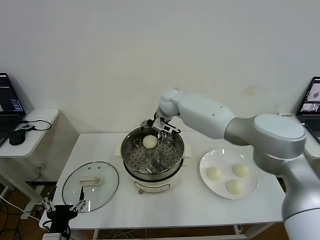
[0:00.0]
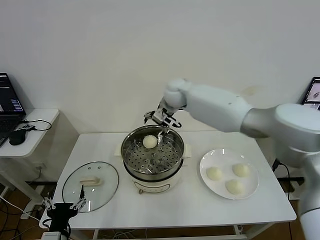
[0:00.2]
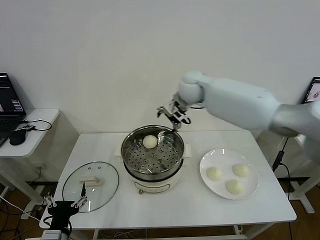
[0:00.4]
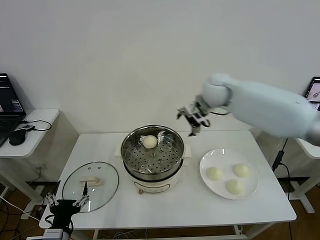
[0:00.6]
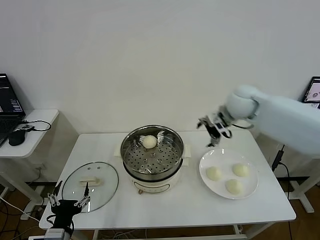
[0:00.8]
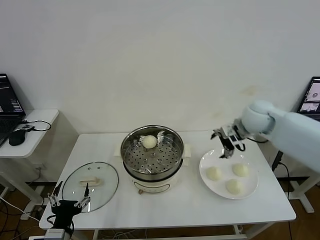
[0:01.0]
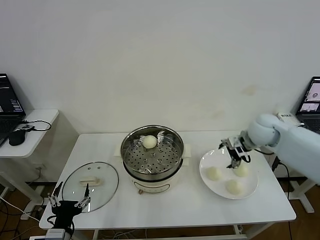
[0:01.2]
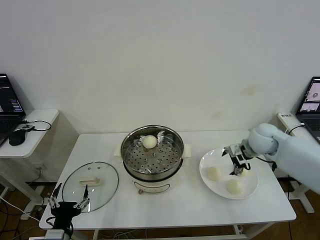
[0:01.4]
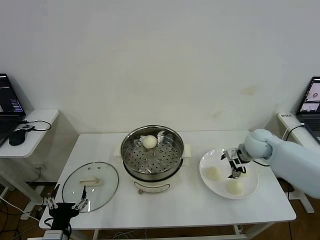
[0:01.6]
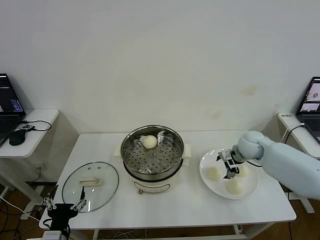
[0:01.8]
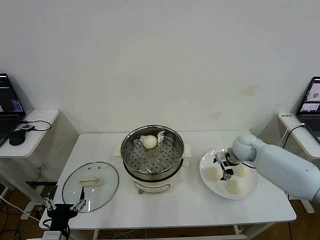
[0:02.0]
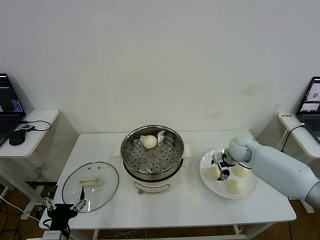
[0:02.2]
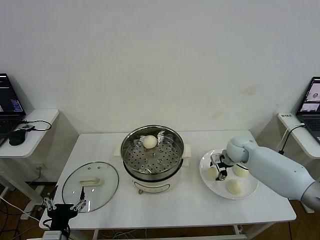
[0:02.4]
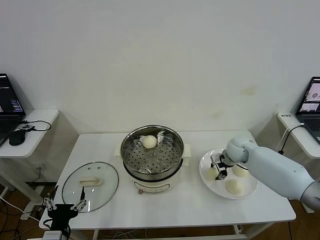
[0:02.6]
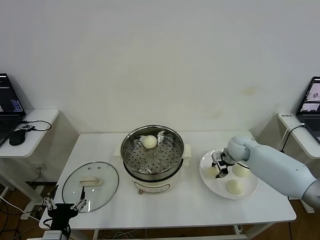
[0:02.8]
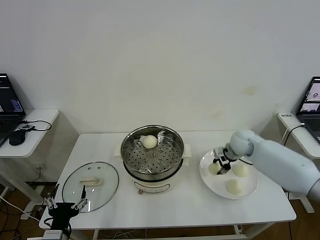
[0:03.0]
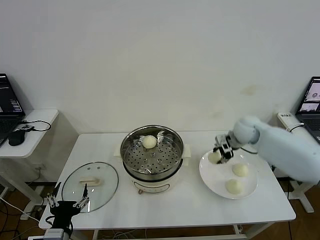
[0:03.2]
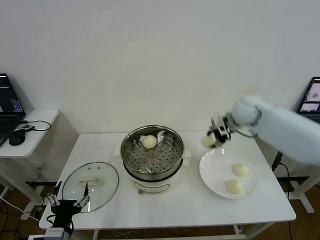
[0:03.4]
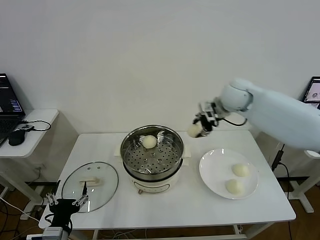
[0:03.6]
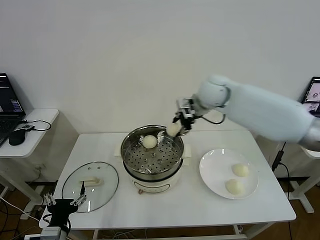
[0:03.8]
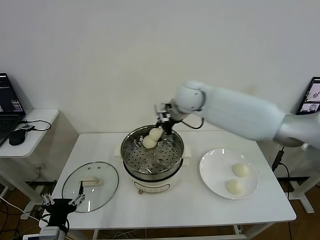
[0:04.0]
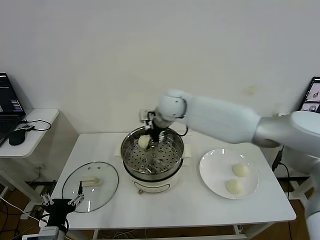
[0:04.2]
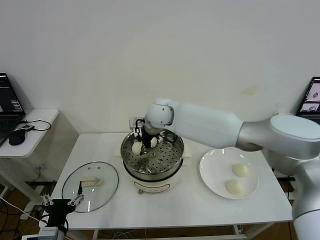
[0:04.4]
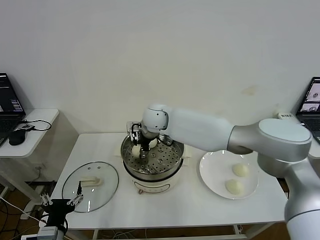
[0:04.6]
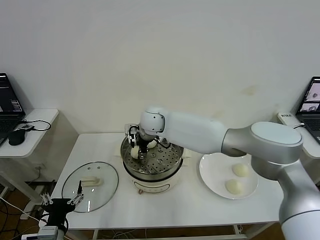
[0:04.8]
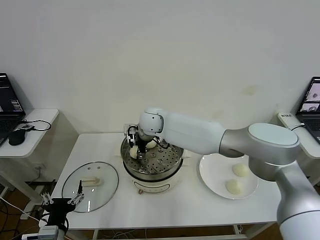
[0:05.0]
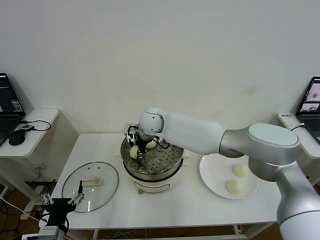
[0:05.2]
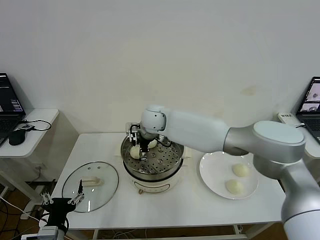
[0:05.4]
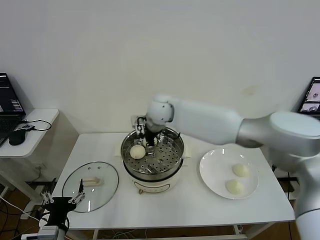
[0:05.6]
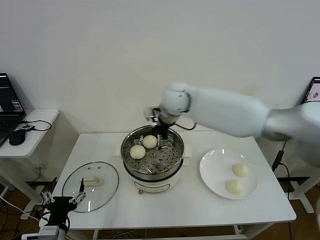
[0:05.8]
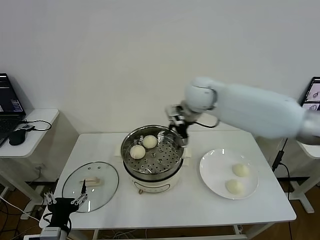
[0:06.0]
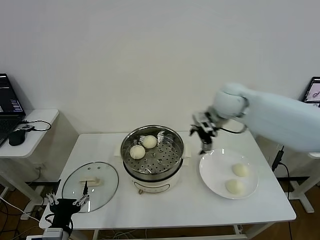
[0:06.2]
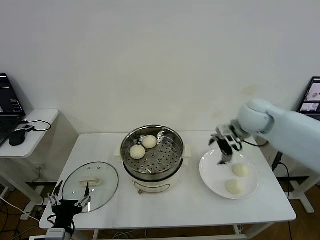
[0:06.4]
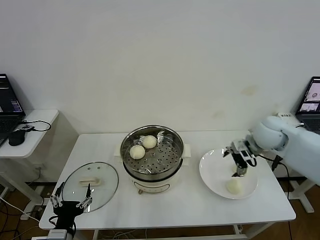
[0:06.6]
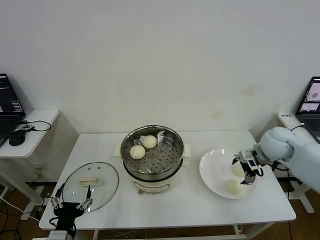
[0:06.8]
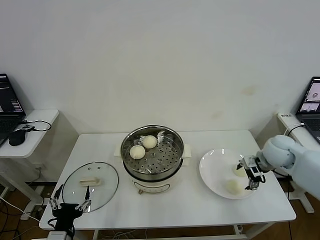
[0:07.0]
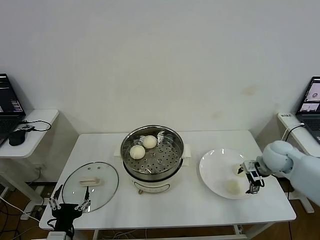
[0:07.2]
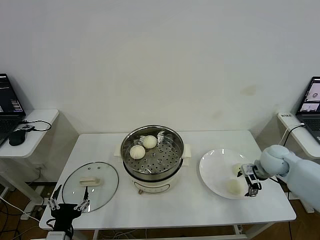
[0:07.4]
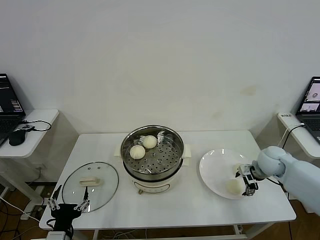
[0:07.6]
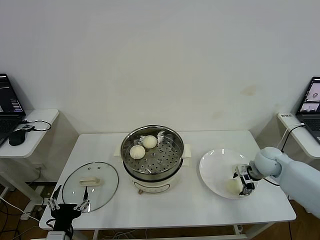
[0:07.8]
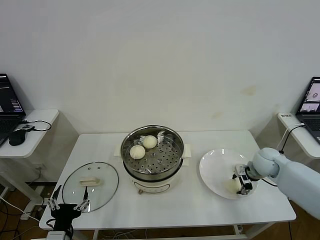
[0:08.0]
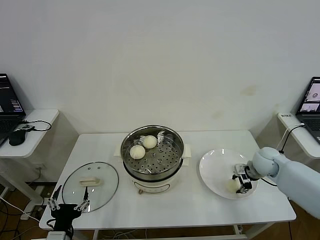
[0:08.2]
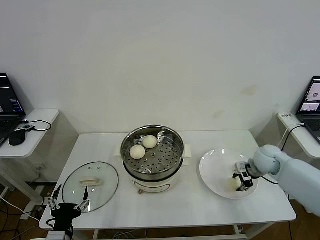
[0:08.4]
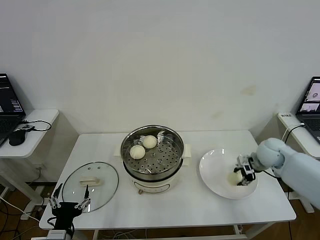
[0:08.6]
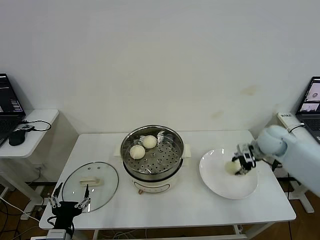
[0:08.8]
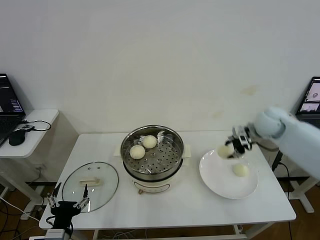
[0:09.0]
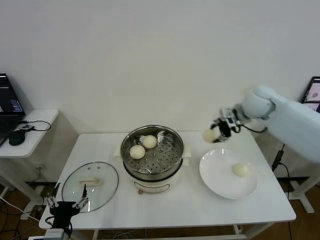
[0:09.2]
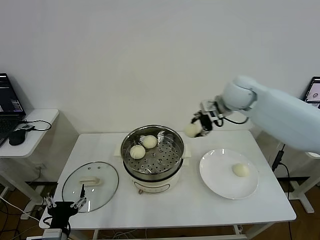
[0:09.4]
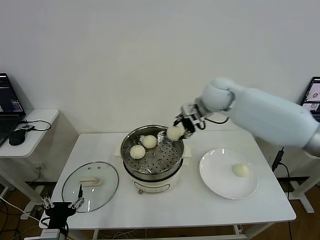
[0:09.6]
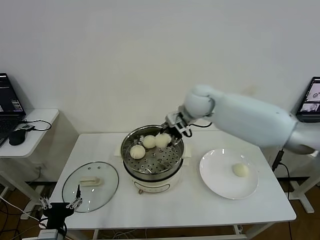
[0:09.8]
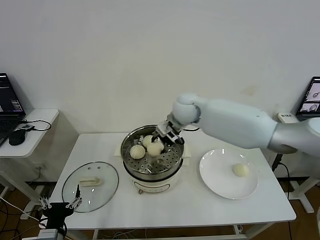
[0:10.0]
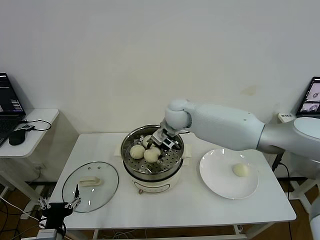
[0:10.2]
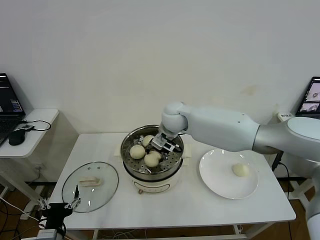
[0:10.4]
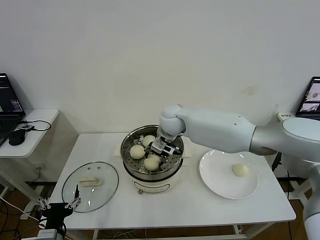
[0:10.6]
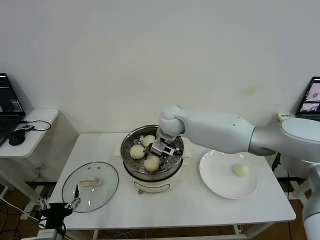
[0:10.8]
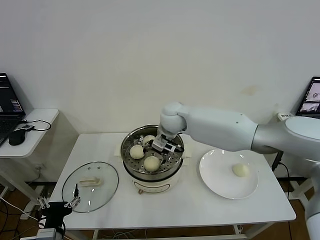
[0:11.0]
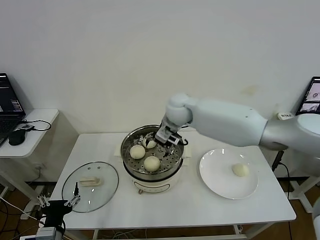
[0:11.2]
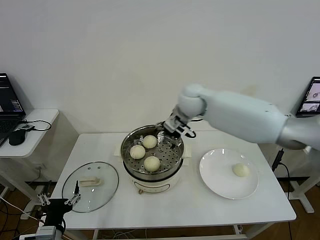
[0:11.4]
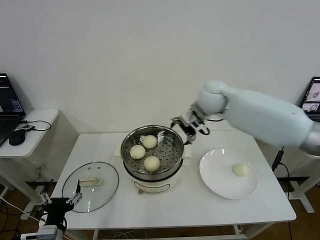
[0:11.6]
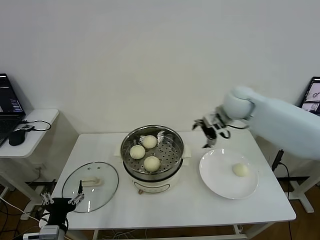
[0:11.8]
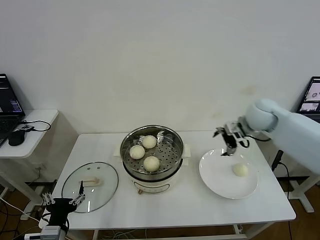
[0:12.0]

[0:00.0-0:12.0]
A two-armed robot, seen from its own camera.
Step, 0:00.0 to 0:02.6: Grasp the baozi in the plate with right gripper.
Step, 0:02.8 to 0:05.4: Place the baozi on the steamer with right gripper.
Step, 0:05.6 to 0:08.2: Grasp the baozi in the plate with right gripper.
Step, 0:08.4 to 0:10.8: Place the baozi on the steamer with right gripper.
0:00.0 to 0:01.6: The right gripper shifts some 35 cm to the right, downward and backward.
0:01.6 to 0:03.0: The right gripper closes its fingers.
0:03.0 to 0:04.4: The right gripper moves to the left, some 30 cm.
0:04.4 to 0:06.0: The right gripper is displaced to the right and upward by roughly 20 cm, and opens its fingers.
0:06.0 to 0:07.6: The right gripper moves to the right and downward, roughly 30 cm.
0:07.6 to 0:09.0: The right gripper is displaced upward and forward by roughly 15 cm, and closes.
0:09.0 to 0:10.4: The right gripper shifts some 30 cm to the left.
0:10.4 to 0:12.0: The right gripper travels to the right by some 30 cm, and opens.

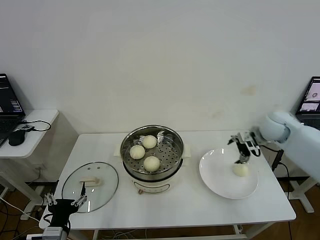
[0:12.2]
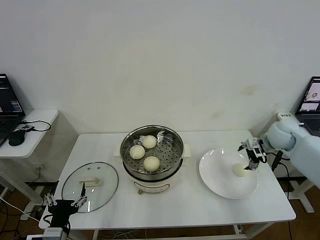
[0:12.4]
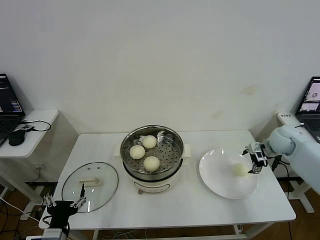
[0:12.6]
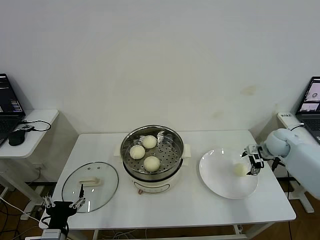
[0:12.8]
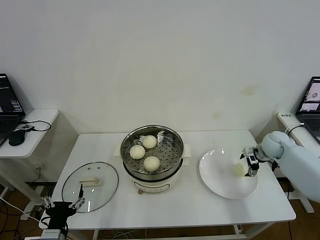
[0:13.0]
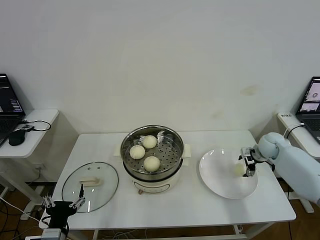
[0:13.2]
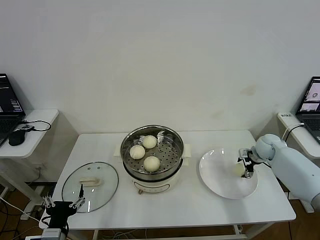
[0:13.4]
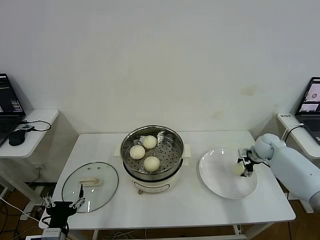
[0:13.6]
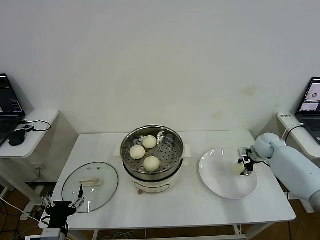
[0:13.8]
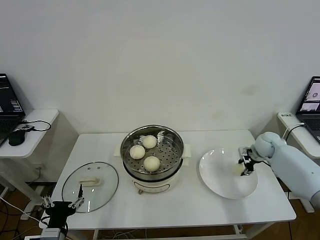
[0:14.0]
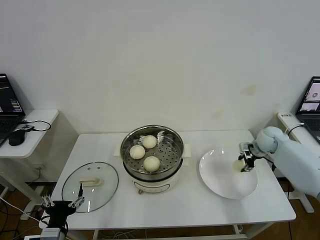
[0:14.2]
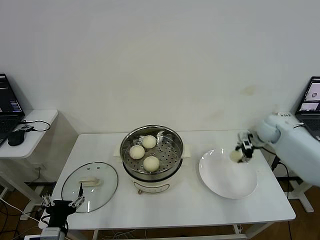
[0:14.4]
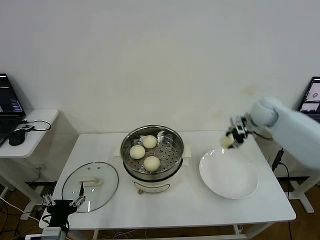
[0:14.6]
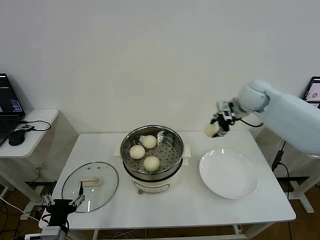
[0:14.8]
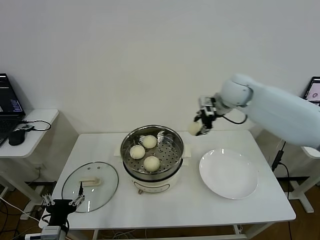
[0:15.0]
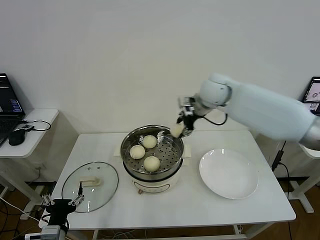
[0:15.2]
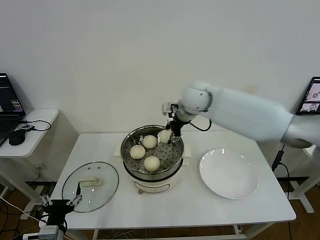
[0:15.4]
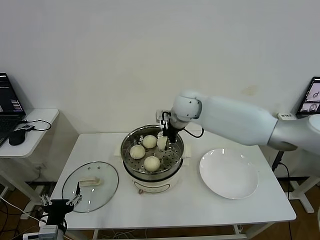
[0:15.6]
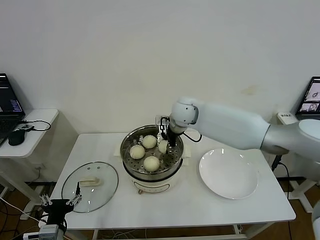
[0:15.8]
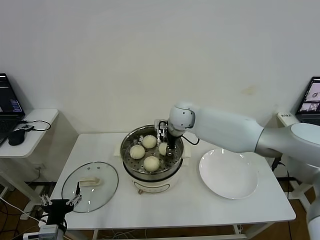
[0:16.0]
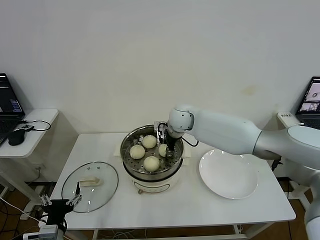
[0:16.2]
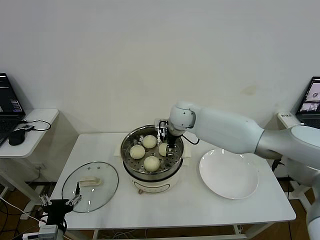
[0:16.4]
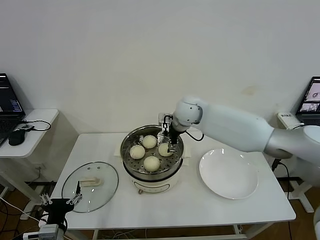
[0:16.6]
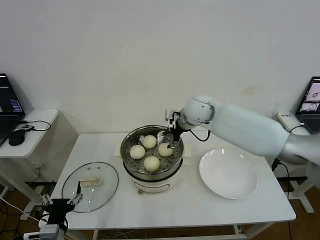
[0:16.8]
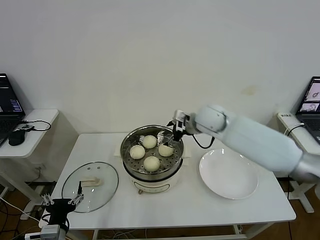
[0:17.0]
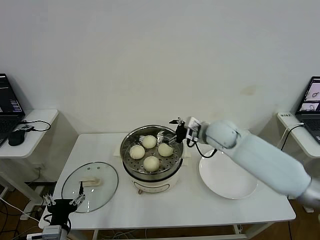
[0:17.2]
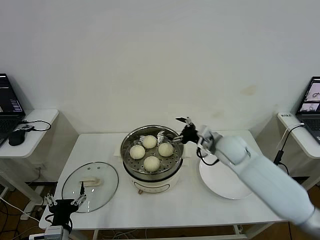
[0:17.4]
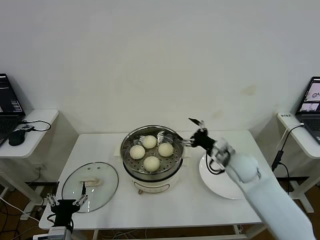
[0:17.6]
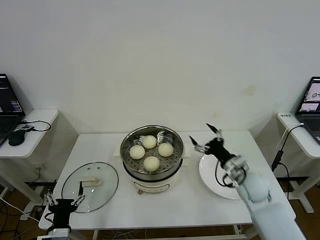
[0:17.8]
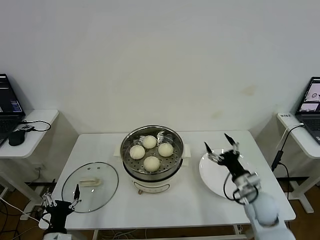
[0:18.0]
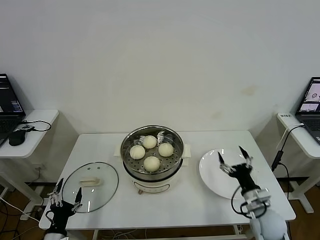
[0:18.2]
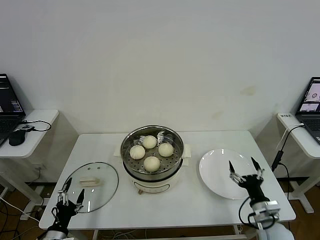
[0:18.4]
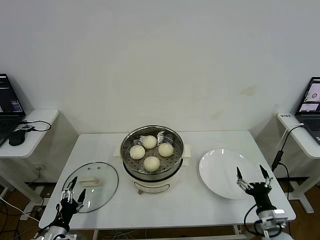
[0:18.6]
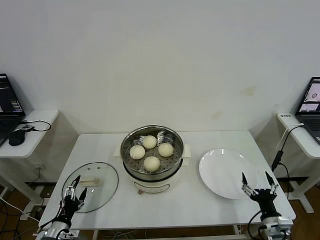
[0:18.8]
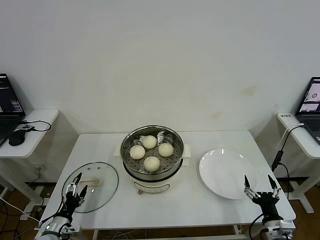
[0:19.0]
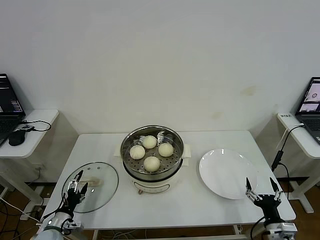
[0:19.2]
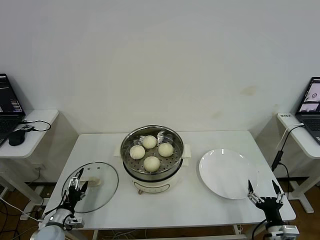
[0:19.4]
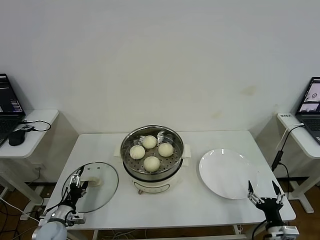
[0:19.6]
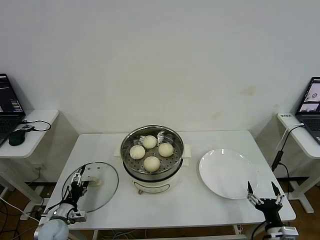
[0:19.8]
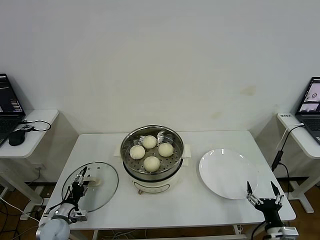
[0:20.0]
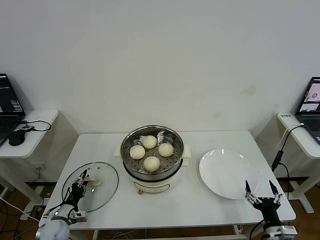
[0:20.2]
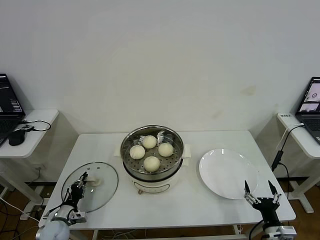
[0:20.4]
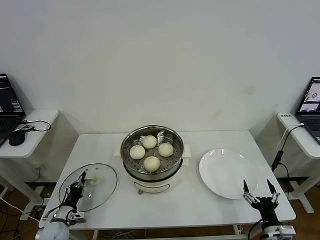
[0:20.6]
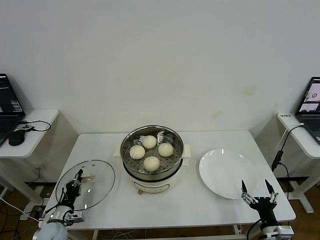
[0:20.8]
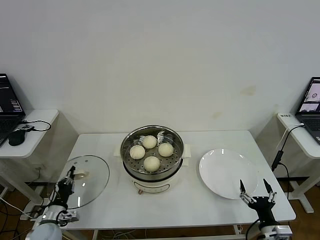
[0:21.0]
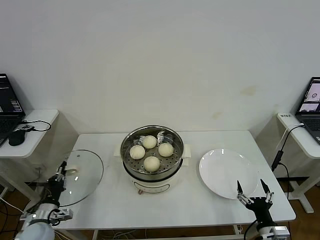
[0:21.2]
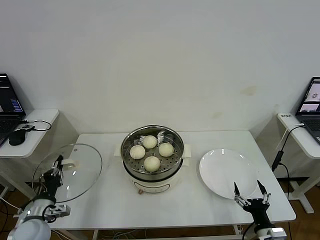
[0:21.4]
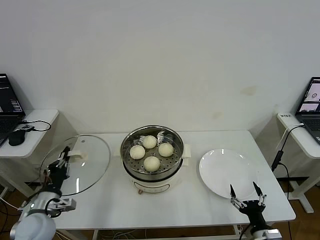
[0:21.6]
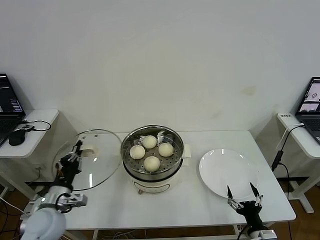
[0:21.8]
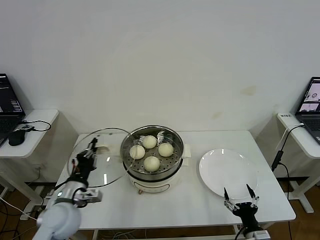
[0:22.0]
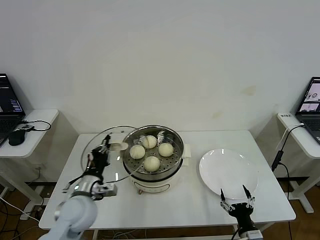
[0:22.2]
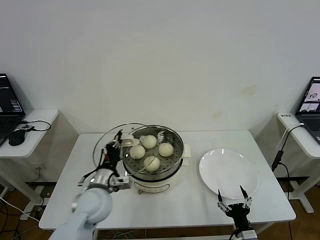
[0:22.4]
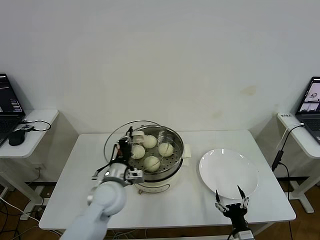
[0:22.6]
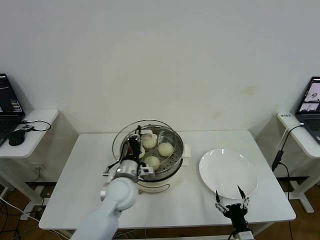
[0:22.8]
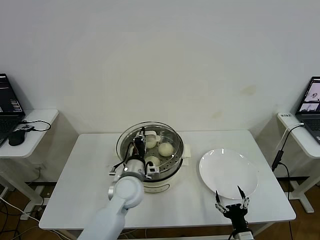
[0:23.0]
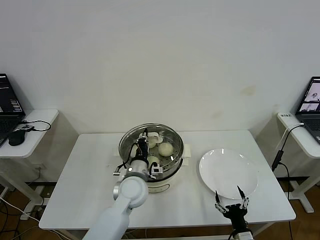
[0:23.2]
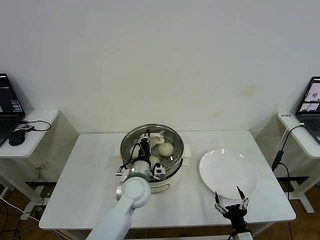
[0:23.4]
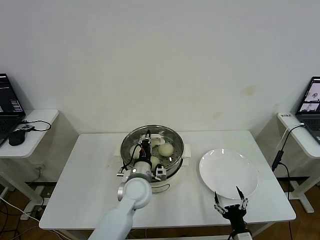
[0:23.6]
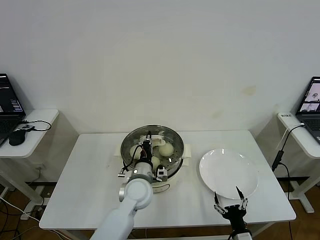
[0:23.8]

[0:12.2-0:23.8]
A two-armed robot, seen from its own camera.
Step, 0:12.2 to 0:14.0: Grasp the baozi in the plate with right gripper.
Step, 0:14.2 to 0:16.4: Place the baozi on the steamer with right gripper.
Step, 0:16.6 to 0:20.6: Grasp the pot lid with left gripper.
0:12.2 to 0:13.6: The right gripper moves downward, approximately 15 cm, and closes.
0:13.6 to 0:15.0: The right gripper goes approximately 30 cm upward and to the left, and closes up.
0:15.0 to 0:16.6: The right gripper travels to the left and downward by about 15 cm, and opens its fingers.
0:16.6 to 0:18.0: The right gripper goes about 40 cm backward, to the right and downward. The left gripper heads downward, covering roughly 5 cm.
0:18.0 to 0:19.4: The right gripper is displaced backward and downward by approximately 15 cm; the left gripper travels forward, to the left and downward by about 15 cm.
0:19.4 to 0:21.0: The left gripper closes its fingers.
0:21.0 to 0:22.4: The left gripper shifts some 25 cm to the right and upward. Meanwhile the right gripper shifts about 5 cm to the left.
0:22.4 to 0:23.8: The left gripper shifts approximately 15 cm to the right and forward.
